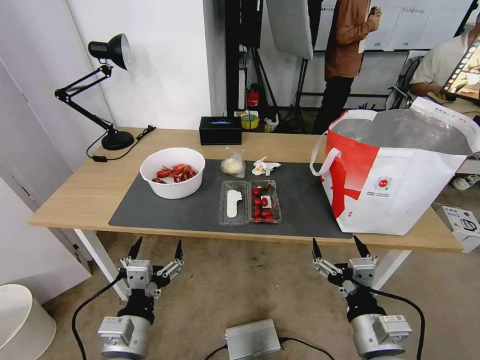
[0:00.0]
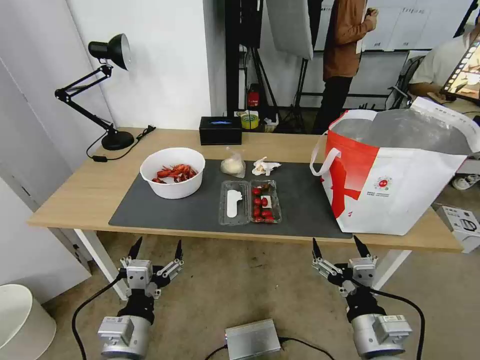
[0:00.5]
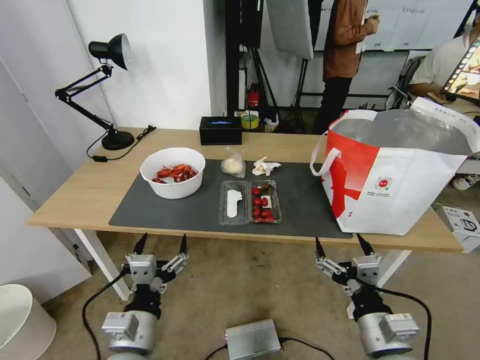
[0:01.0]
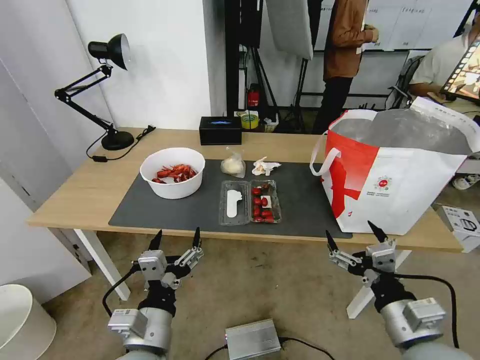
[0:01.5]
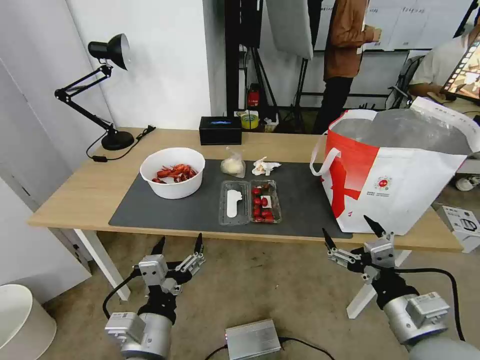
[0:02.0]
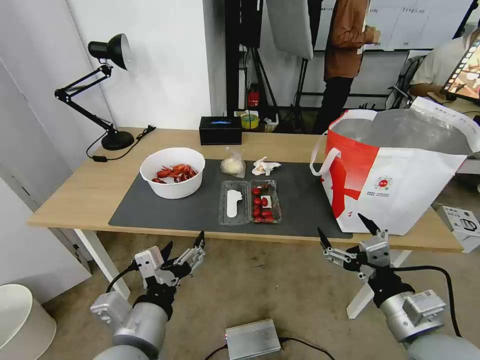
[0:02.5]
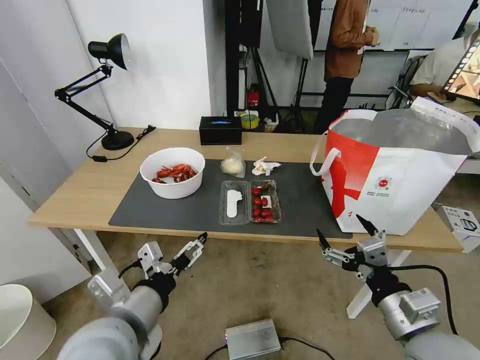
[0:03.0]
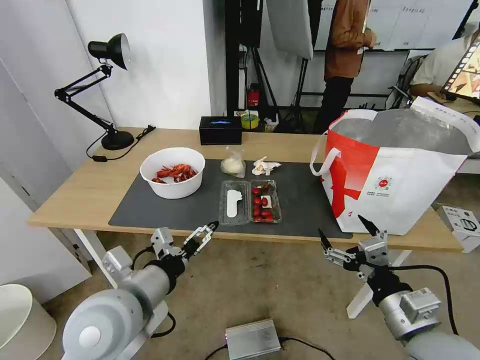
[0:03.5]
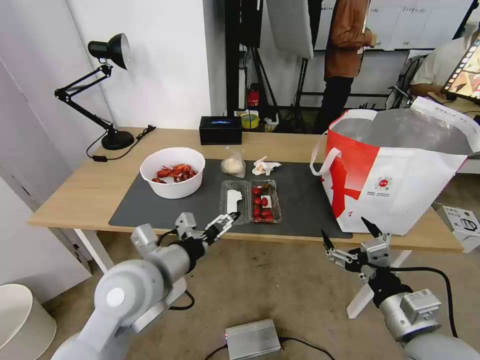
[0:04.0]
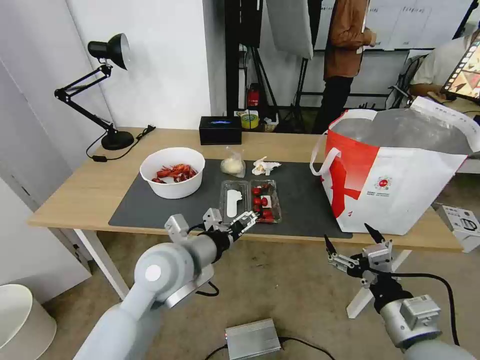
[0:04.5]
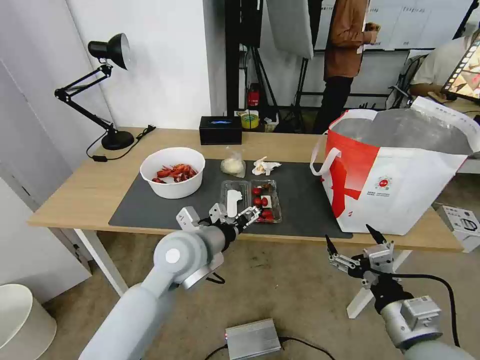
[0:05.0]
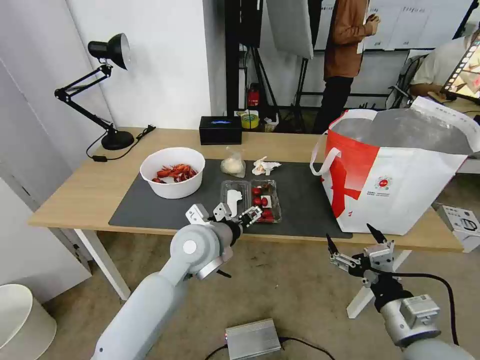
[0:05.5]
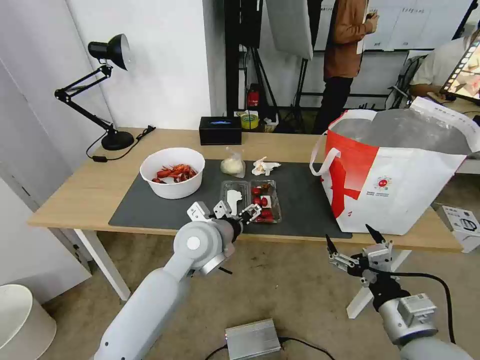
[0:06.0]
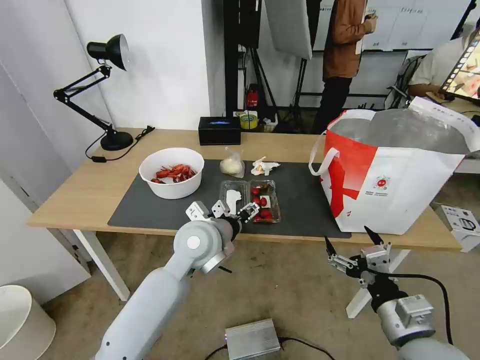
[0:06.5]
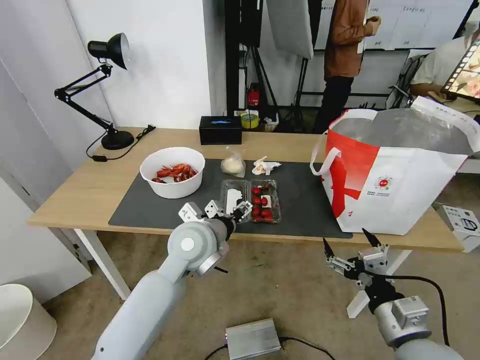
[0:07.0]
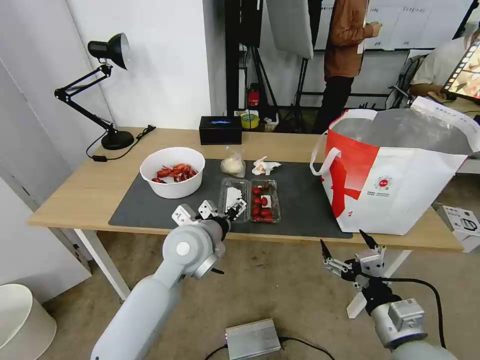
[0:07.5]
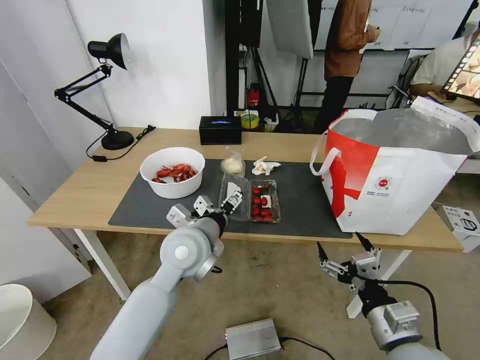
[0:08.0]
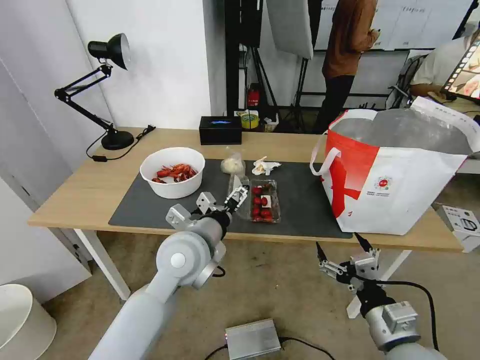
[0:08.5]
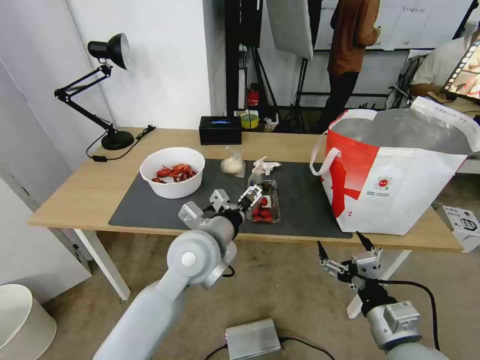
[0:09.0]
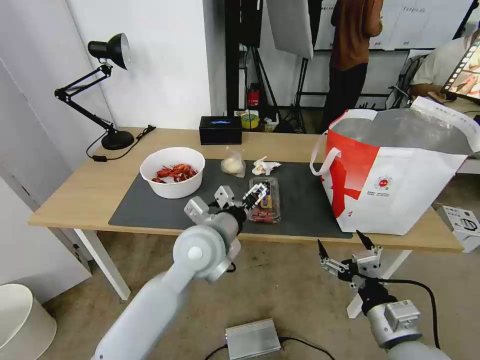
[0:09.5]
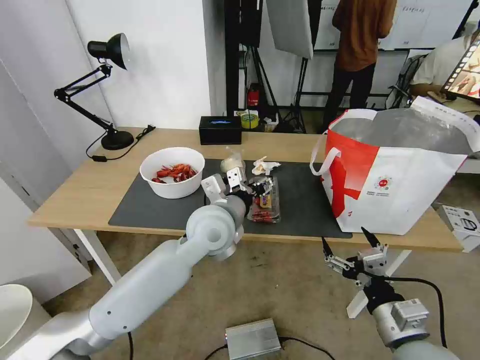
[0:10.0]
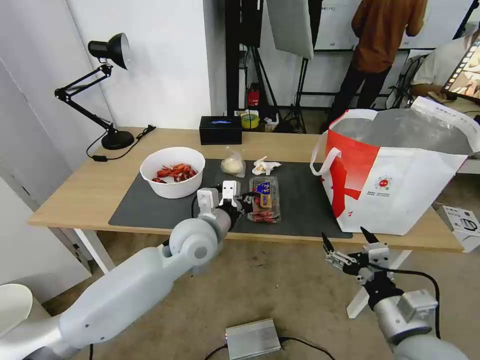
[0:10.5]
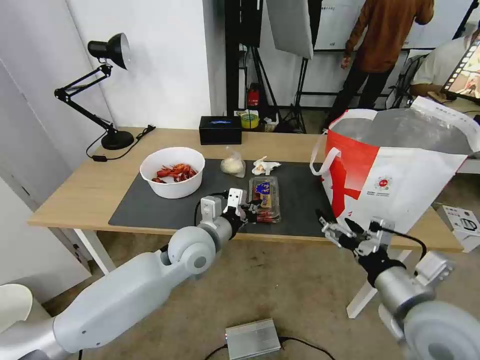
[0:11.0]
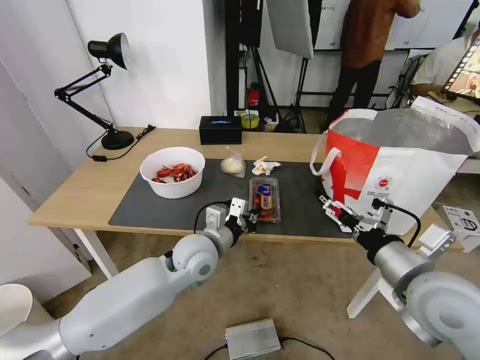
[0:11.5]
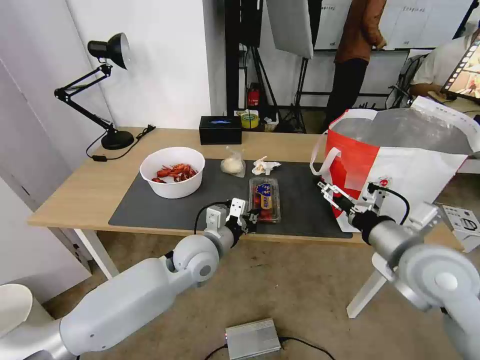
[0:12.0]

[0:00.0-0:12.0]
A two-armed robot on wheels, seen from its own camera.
Task of the whole recording: Pick up the trash from the table and place it into the takeout bag.
0:02.0 to 0:04.0: The left gripper goes some 15 cm forward and upward.
0:04.0 to 0:06.0: The left gripper is displaced forward and to the right by roughly 15 cm.
0:06.0 to 0:08.0: The grippers make only small movements.
0:08.0 to 0:10.0: The left gripper moves some 5 cm.
0:10.0 to 0:12.0: The right gripper goes roughly 15 cm forward and upward. The left gripper is displaced downward by approximately 10 cm, and closes.

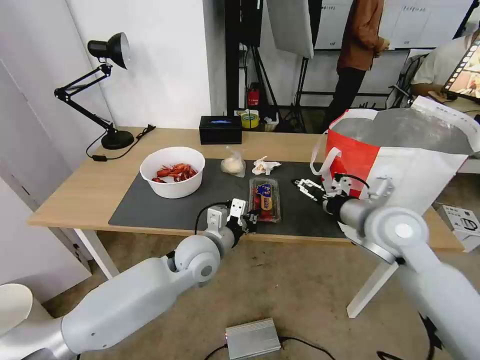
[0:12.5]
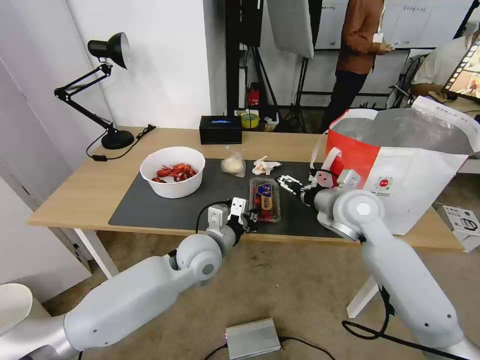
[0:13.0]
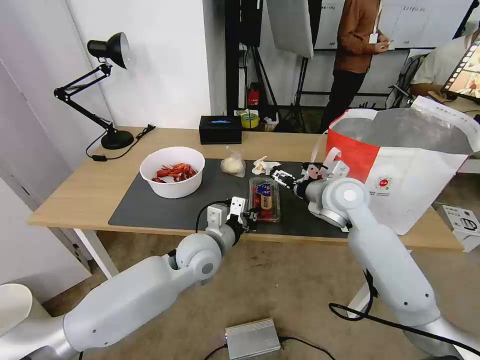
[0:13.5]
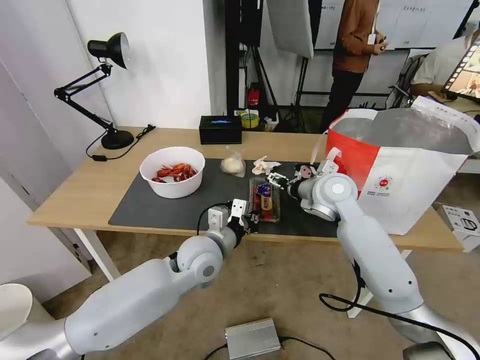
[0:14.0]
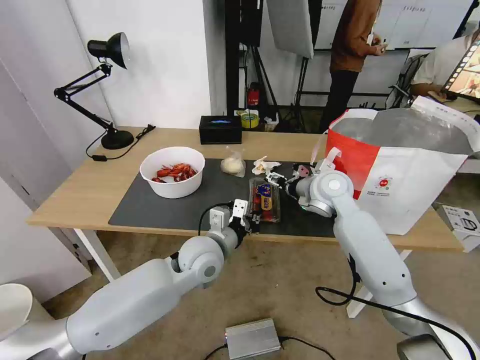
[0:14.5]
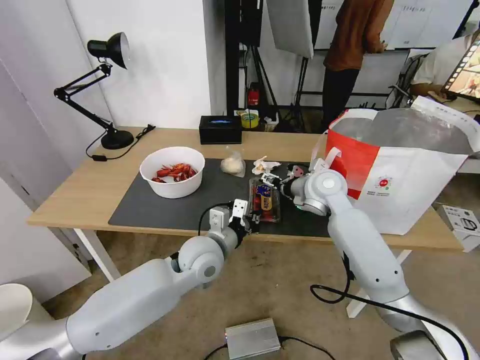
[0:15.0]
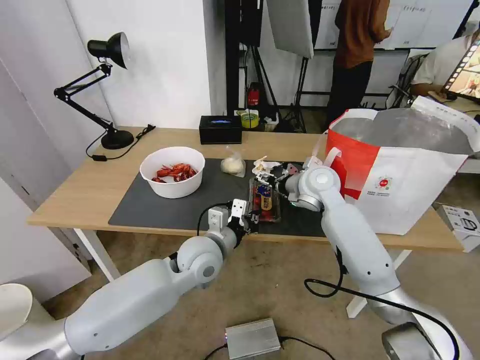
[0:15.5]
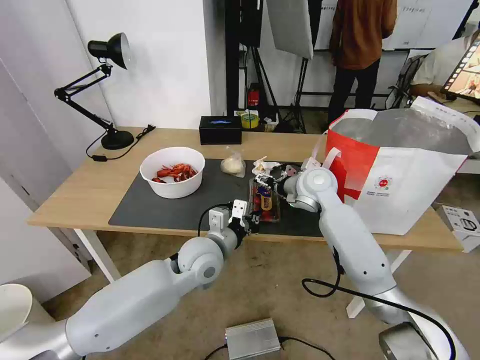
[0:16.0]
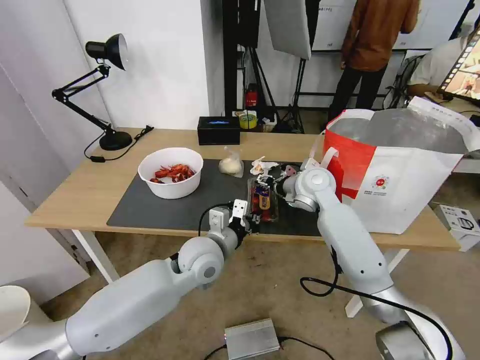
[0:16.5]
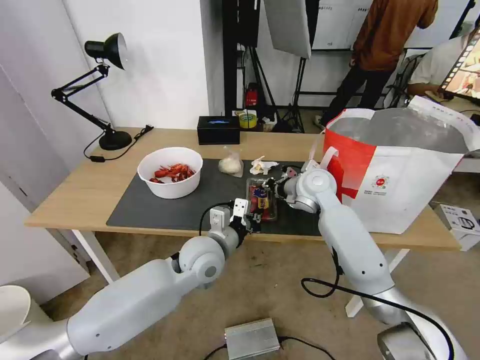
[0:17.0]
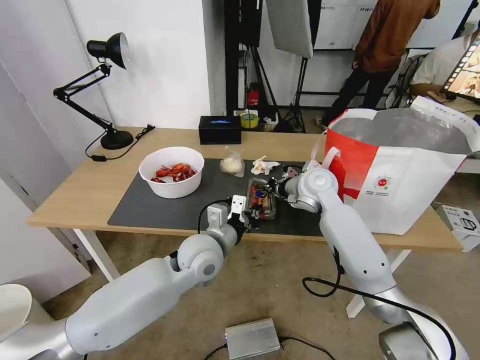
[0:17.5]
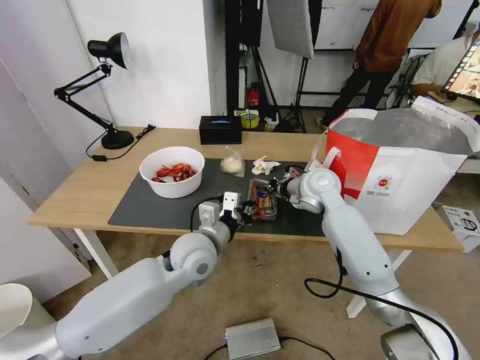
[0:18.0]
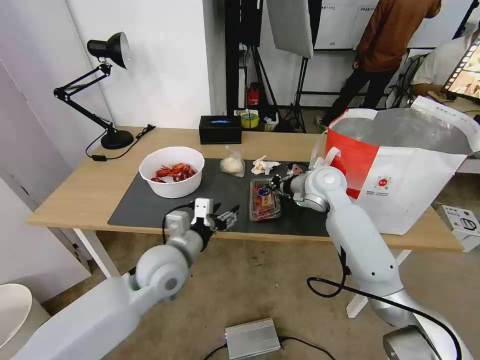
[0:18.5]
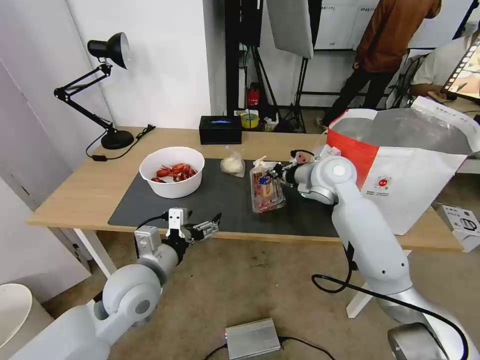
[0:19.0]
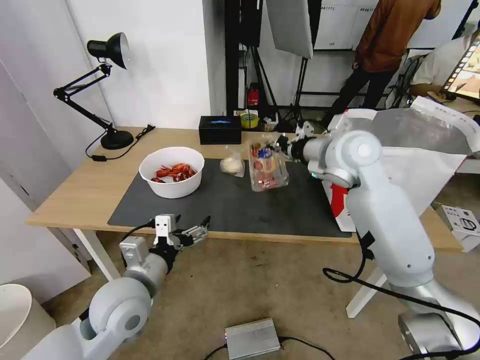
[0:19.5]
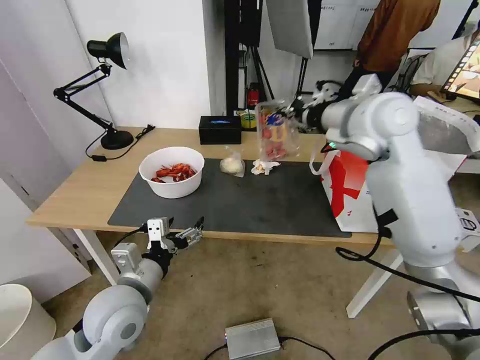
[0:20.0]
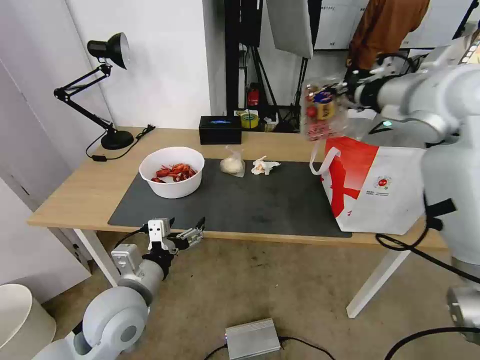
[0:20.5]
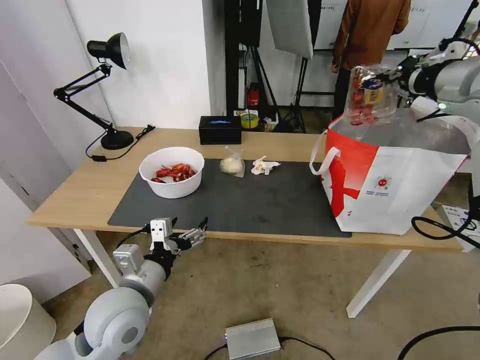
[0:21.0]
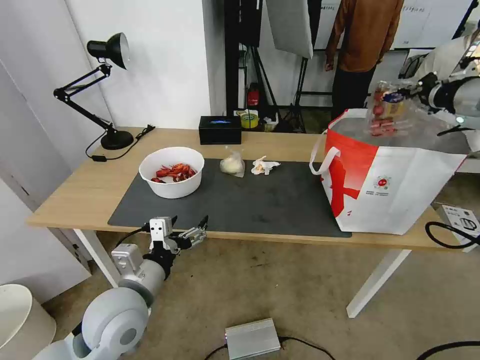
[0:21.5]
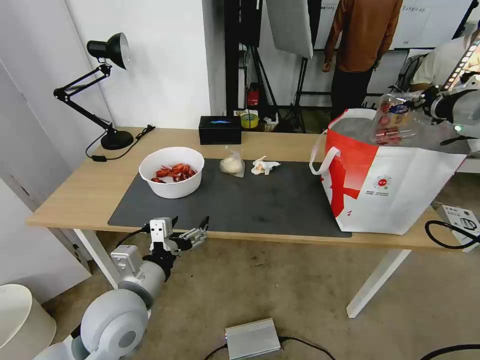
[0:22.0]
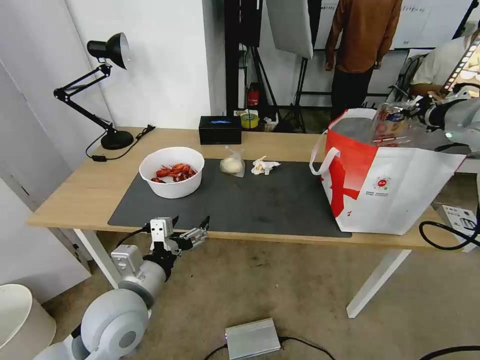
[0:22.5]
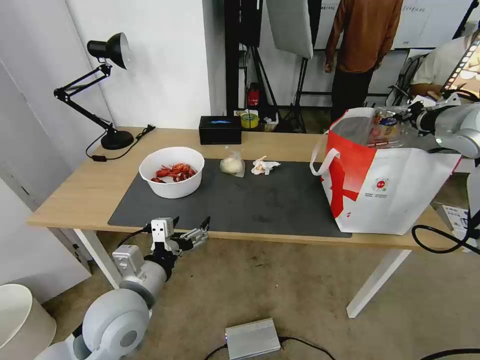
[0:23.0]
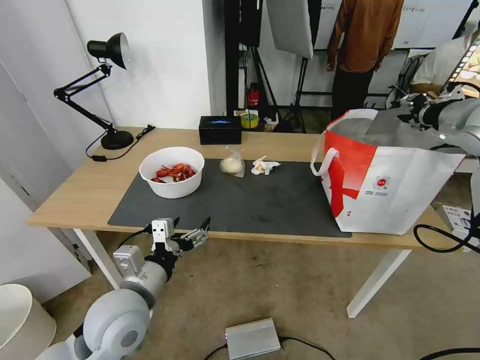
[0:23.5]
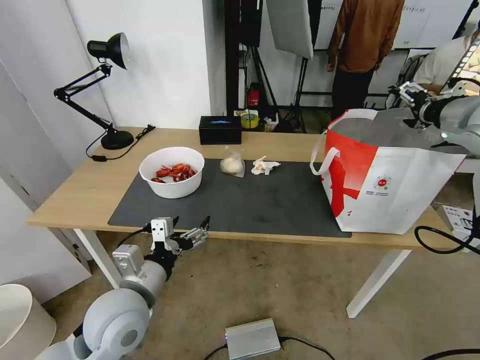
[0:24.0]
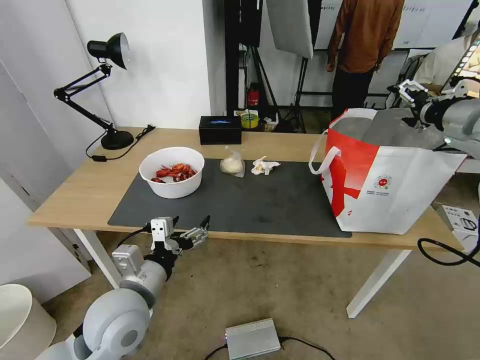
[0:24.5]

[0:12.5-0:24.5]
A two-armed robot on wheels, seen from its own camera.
Task of the whole recording: Pick up the trash from the table and place it into the takeout bag.
0:12.5 to 0:14.5: The right gripper goes roughly 15 cm forward and to the left.
0:14.5 to 0:16.5: The grippers make only small movements.
0:16.5 to 0:18.5: The right gripper closes up; the left gripper moves to the left, roughly 5 cm, and opens up.
0:18.5 to 0:20.5: The left gripper is displaced backward and to the left by roughly 10 cm, while the right gripper travels upward and to the right by roughly 25 cm.
0:20.5 to 0:22.5: The right gripper travels to the right by some 15 cm.
0:22.5 to 0:24.5: The right gripper opens its fingers.

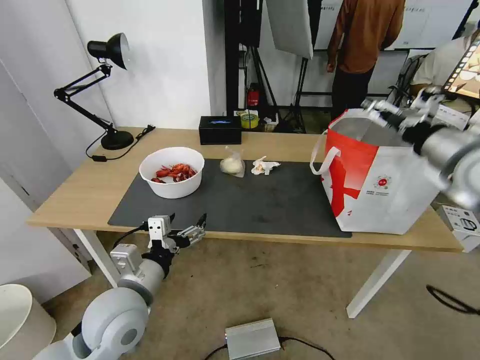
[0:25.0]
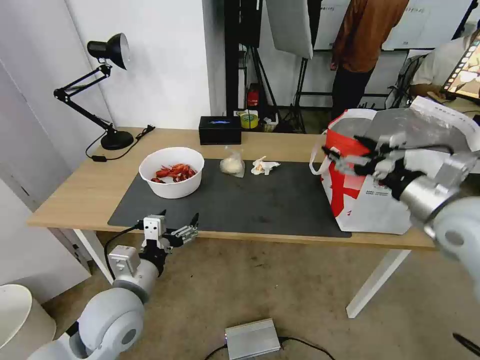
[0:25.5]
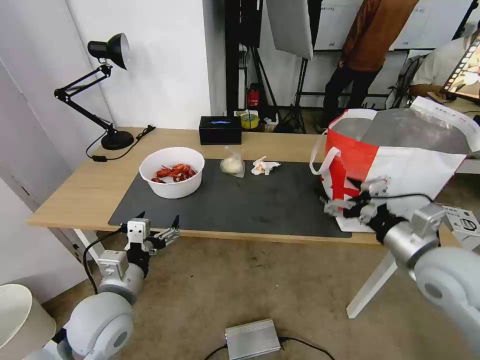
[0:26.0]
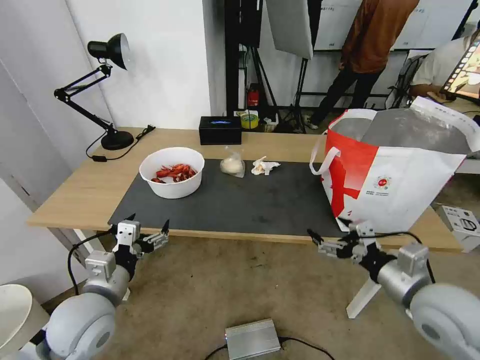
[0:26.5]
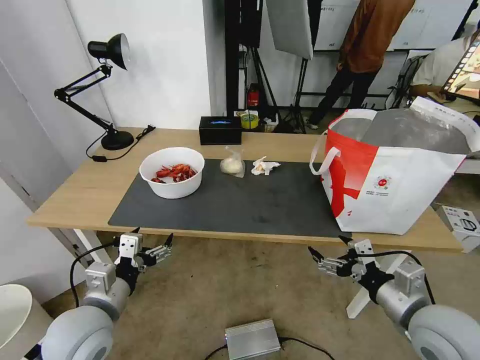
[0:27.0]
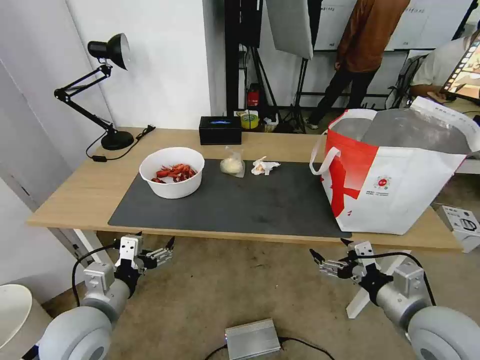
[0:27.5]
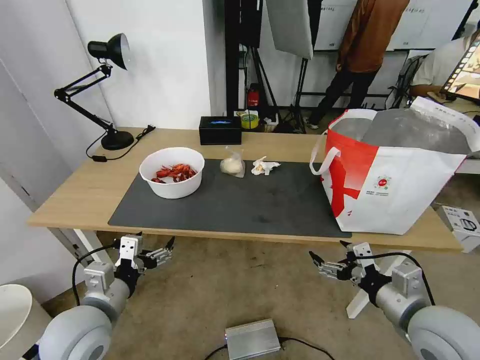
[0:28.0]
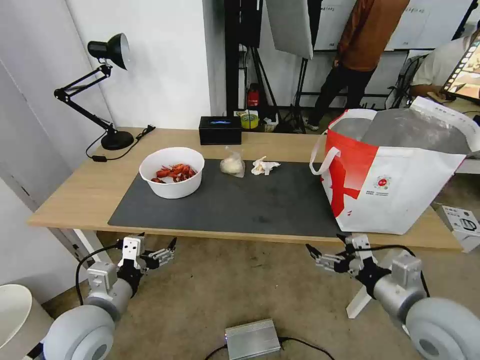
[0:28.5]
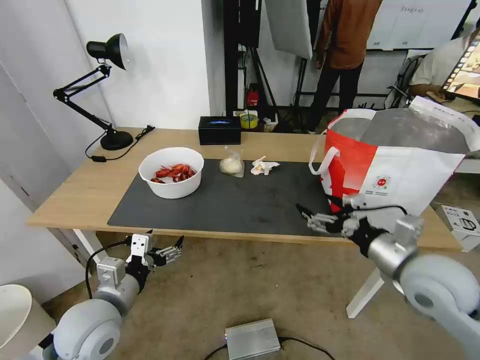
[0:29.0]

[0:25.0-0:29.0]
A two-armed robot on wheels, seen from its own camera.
Task of the whole recording: Pick up the trash from the table and place it into the takeout bag.
0:25.0 to 0:27.0: The left gripper shifts about 5 cm to the left; the right gripper is displaced downward and backward by roughly 25 cm.
0:27.0 to 0:29.0: The right gripper travels forward and upward by roughly 10 cm.
